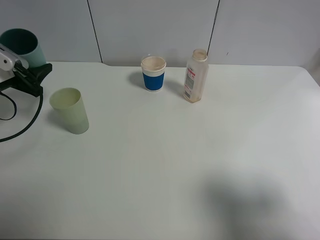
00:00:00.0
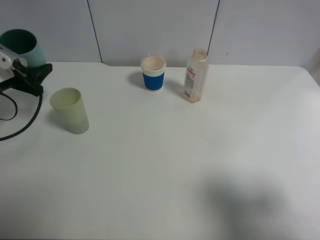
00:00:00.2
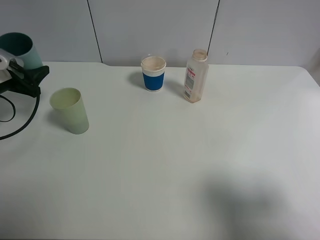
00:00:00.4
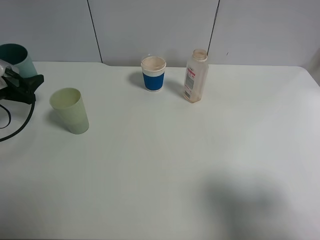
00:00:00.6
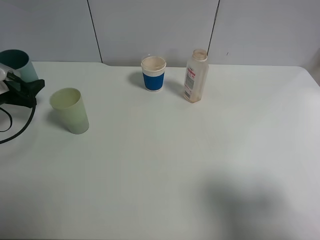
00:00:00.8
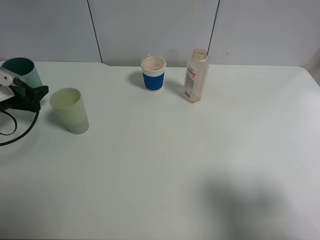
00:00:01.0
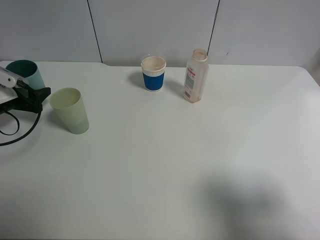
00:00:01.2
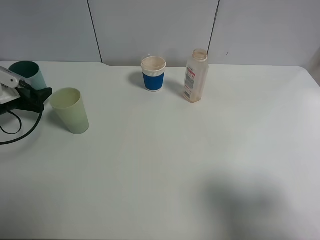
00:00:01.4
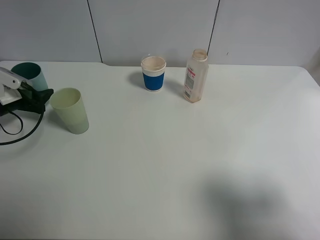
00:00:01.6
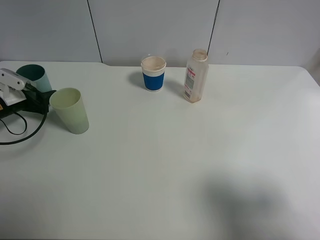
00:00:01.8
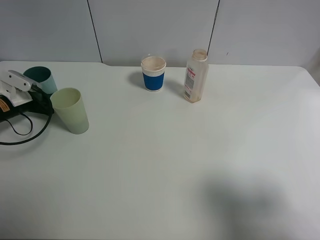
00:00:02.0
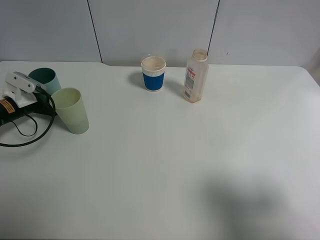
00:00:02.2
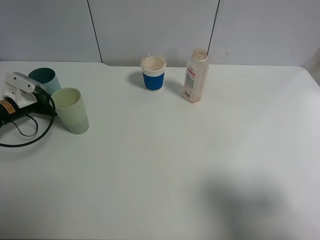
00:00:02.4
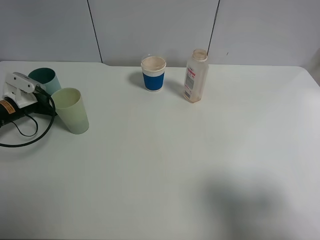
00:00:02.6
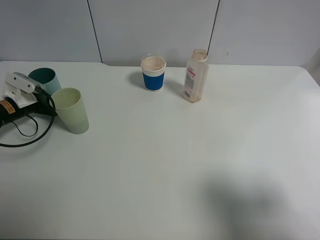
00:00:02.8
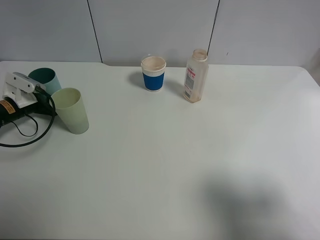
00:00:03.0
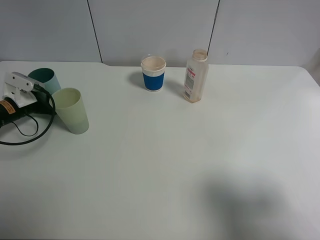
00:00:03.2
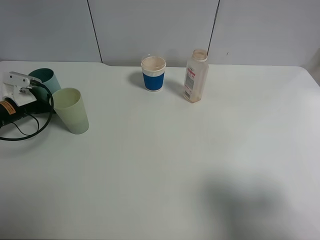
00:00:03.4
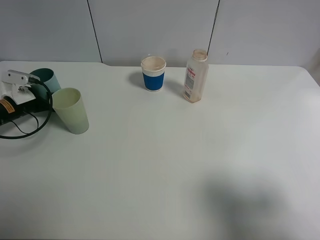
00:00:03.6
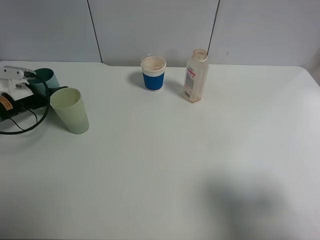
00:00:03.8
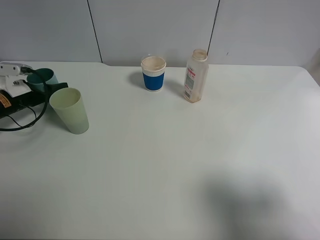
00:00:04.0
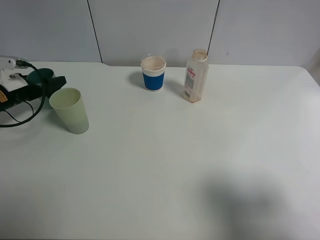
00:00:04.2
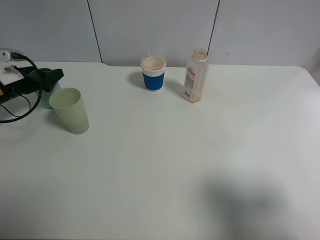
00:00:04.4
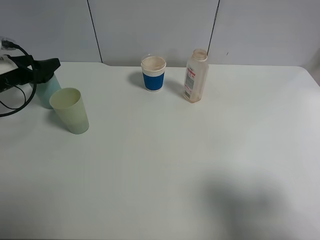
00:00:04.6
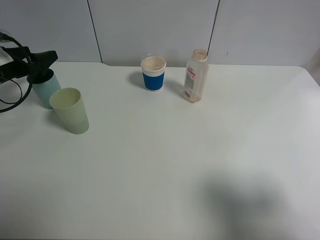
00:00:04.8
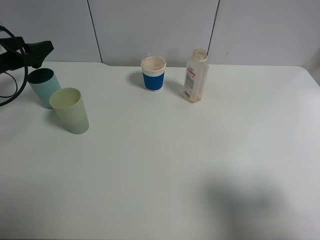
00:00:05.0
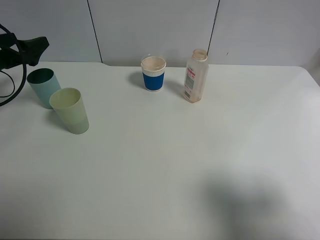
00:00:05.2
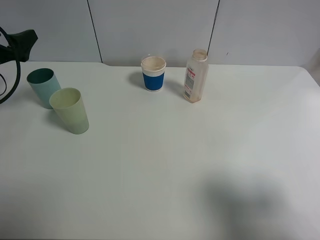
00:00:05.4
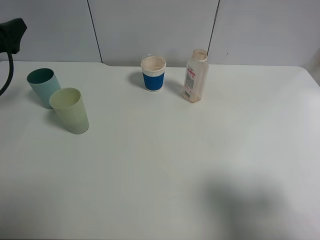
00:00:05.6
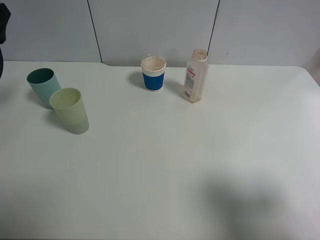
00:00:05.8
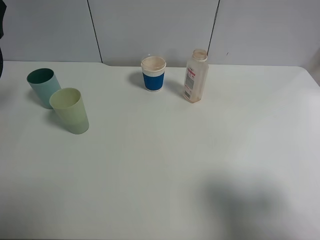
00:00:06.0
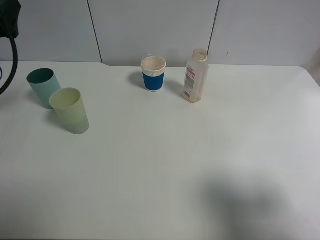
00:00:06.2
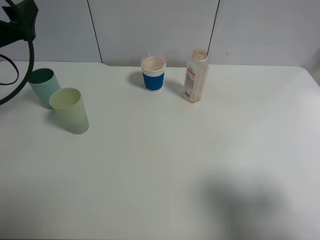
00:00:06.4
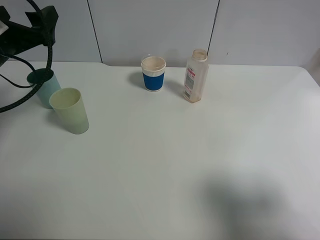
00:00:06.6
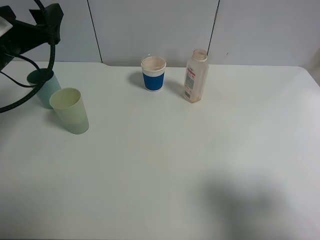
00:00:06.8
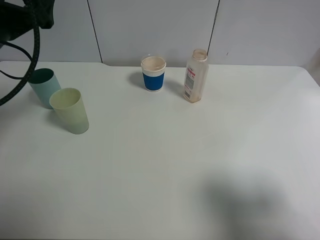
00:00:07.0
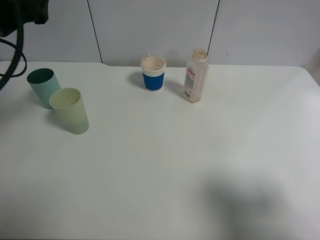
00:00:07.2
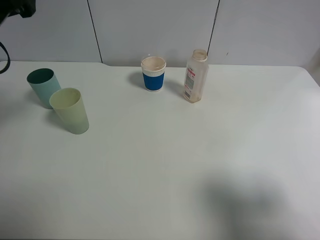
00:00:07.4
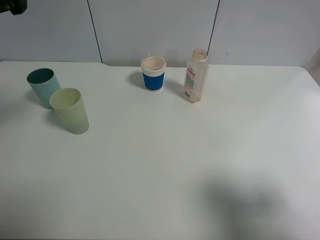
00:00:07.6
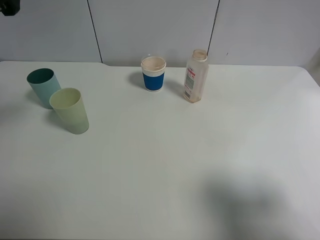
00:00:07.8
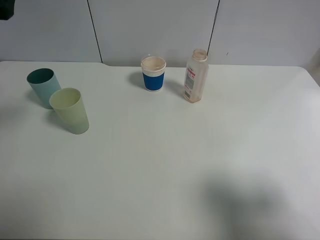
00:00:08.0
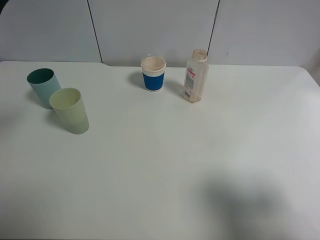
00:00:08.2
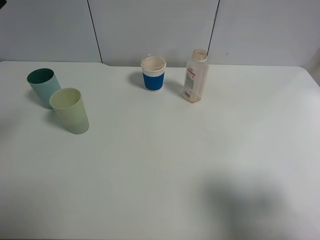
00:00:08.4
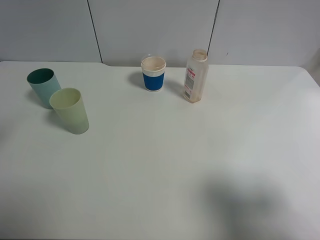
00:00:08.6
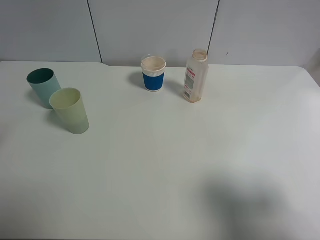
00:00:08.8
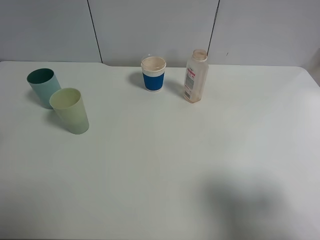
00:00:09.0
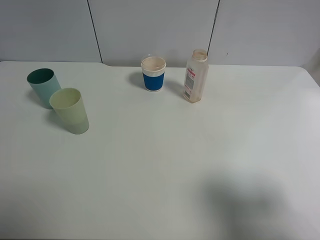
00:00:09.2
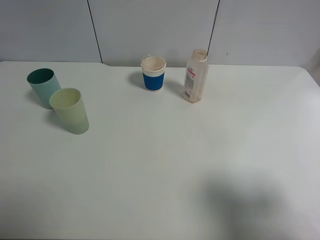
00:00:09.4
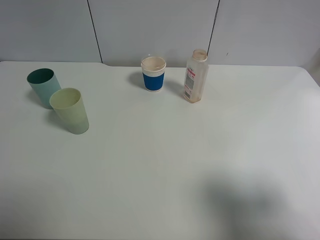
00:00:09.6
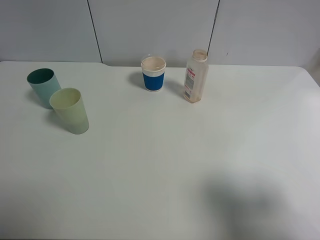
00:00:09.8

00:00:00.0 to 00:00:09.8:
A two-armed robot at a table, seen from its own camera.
Task of the whole recording: use a clamp to hold the bottle of the drink, pour the beverage into a random cup, then clamp the cup containing the drink and pour the drink into another random cup.
00:00:00.0 to 00:00:01.4: The left gripper heads downward, covering approximately 10 cm.
00:00:01.4 to 00:00:02.8: There are only small adjustments of the grippers.
00:00:02.8 to 00:00:04.2: The left gripper opens.
00:00:04.2 to 00:00:05.6: The left gripper goes approximately 15 cm upward and backward.
00:00:05.6 to 00:00:07.0: The left gripper goes about 10 cm to the right.
00:00:07.0 to 00:00:08.4: The left gripper goes some 10 cm backward and upward.

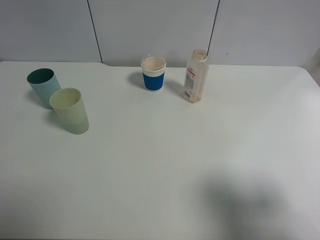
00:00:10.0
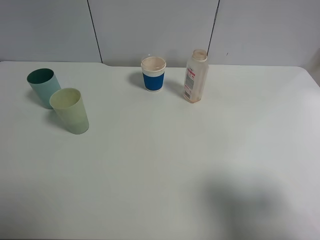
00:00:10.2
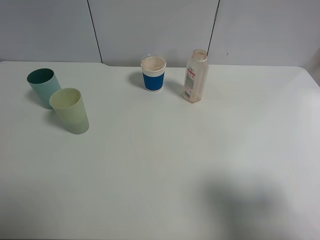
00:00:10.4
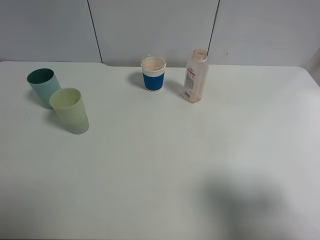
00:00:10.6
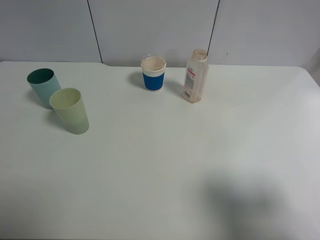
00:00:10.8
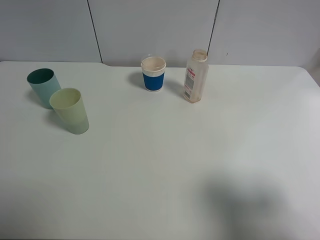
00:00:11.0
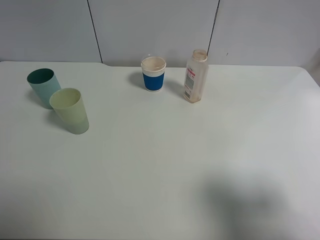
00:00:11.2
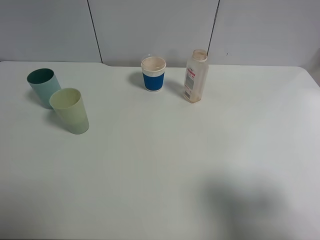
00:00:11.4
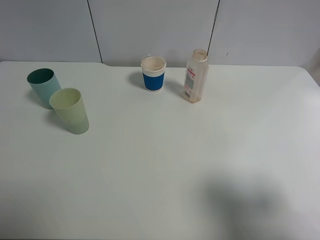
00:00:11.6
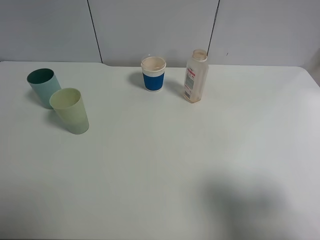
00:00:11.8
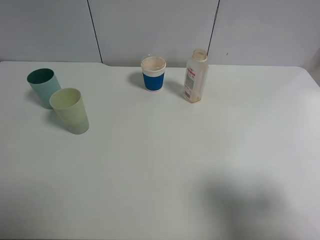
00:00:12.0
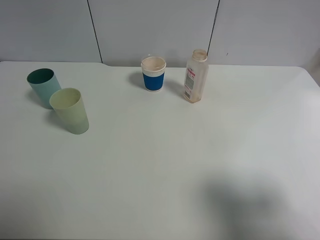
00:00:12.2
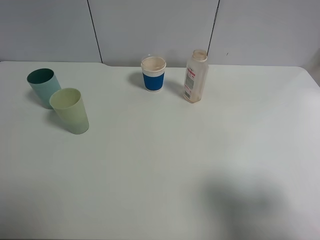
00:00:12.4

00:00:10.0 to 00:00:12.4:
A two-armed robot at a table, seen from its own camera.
Task of the whole recording: use a clamp to hold the bottle of the drink, pour the beverage into a random cup, then clamp the cup containing the drink and pour the drink into another random cup.
00:00:11.2 to 00:00:12.4: Neither gripper changes place.

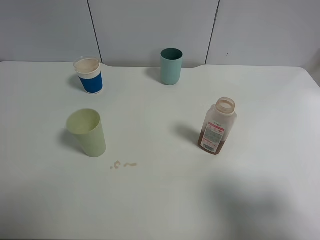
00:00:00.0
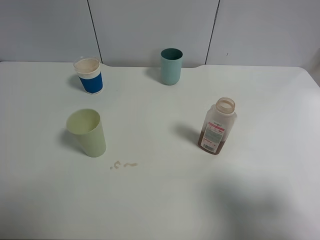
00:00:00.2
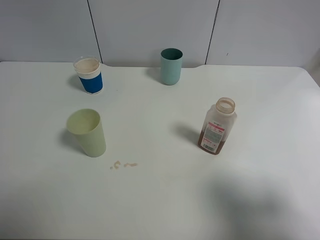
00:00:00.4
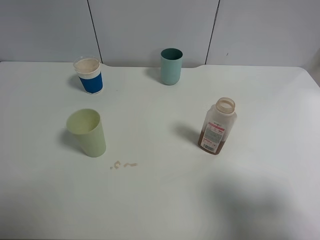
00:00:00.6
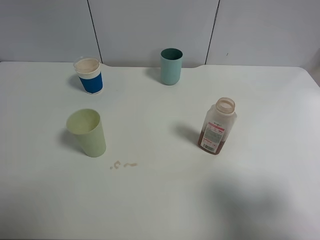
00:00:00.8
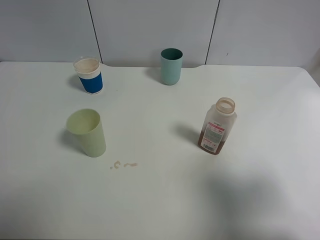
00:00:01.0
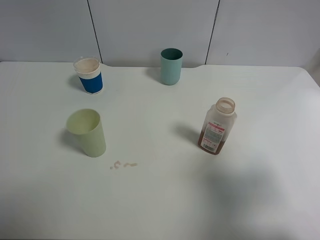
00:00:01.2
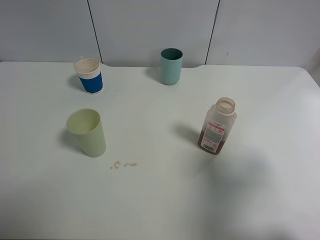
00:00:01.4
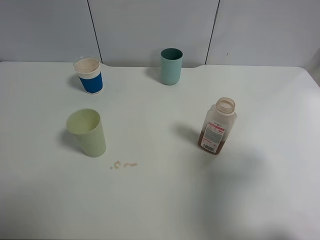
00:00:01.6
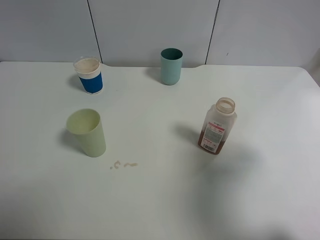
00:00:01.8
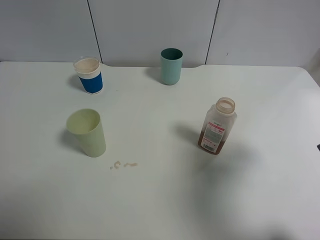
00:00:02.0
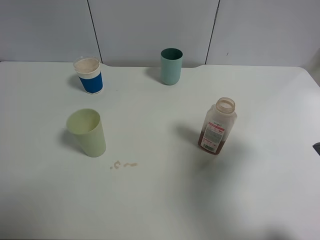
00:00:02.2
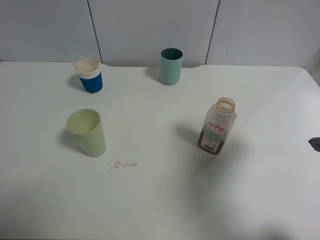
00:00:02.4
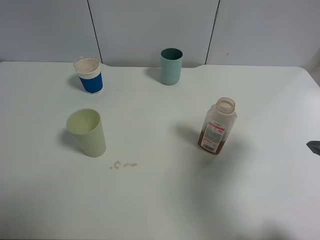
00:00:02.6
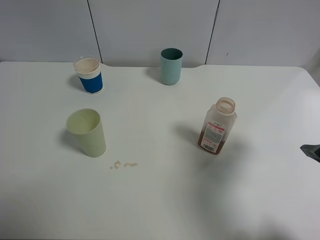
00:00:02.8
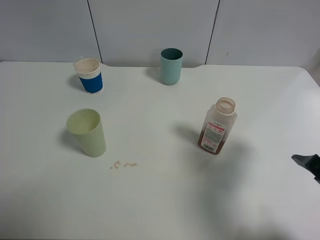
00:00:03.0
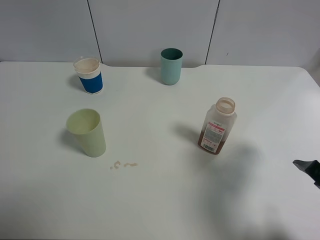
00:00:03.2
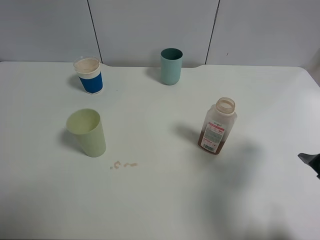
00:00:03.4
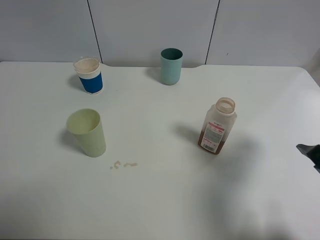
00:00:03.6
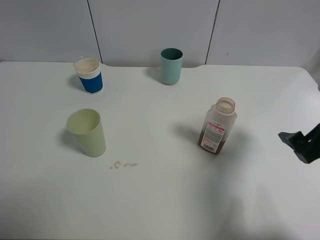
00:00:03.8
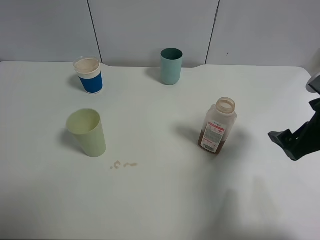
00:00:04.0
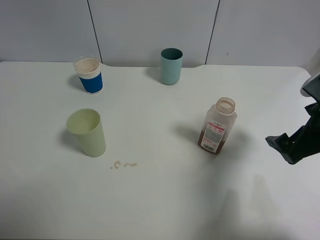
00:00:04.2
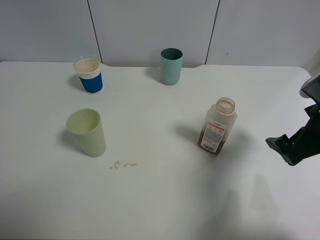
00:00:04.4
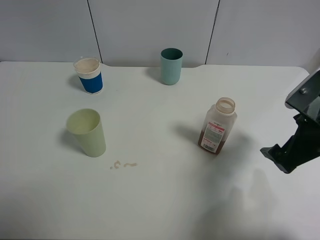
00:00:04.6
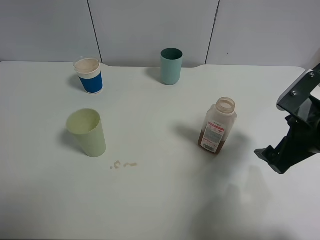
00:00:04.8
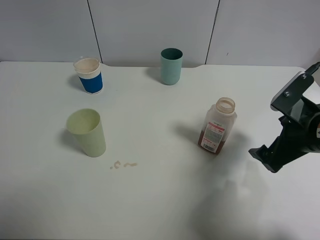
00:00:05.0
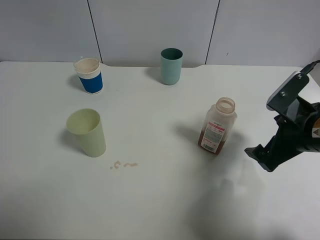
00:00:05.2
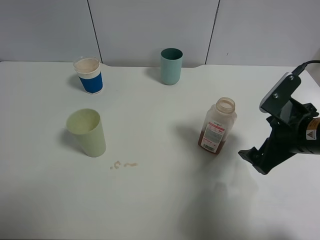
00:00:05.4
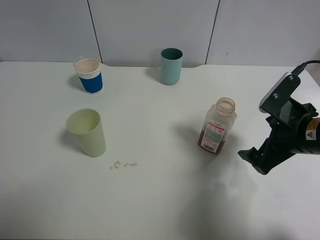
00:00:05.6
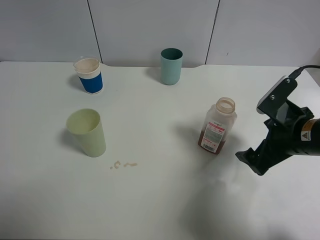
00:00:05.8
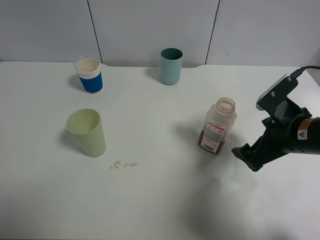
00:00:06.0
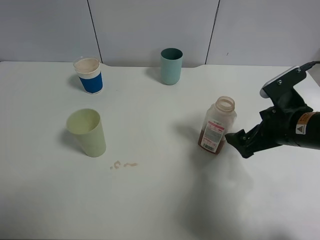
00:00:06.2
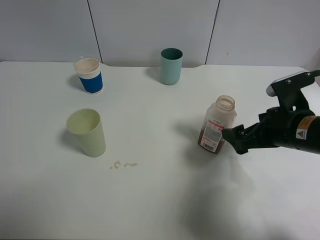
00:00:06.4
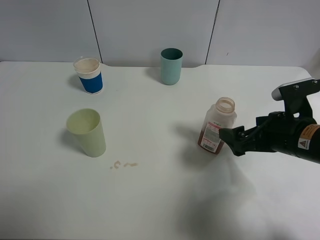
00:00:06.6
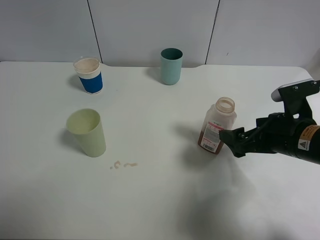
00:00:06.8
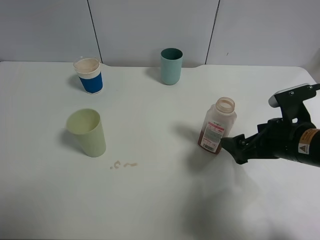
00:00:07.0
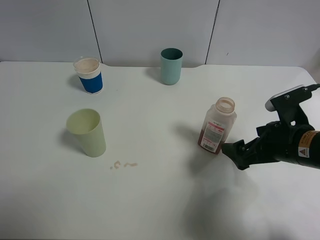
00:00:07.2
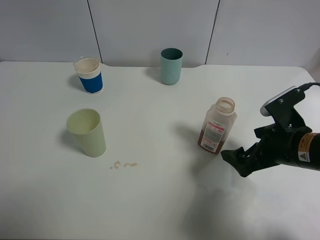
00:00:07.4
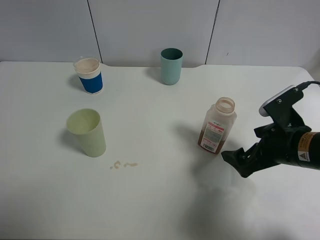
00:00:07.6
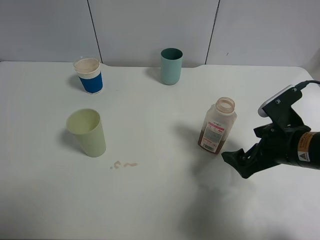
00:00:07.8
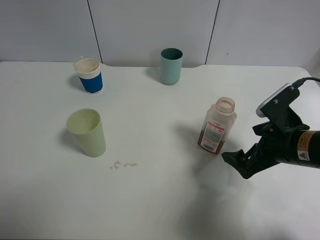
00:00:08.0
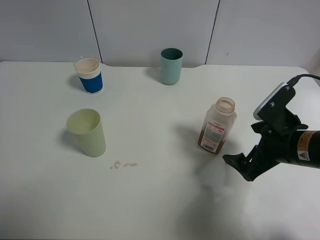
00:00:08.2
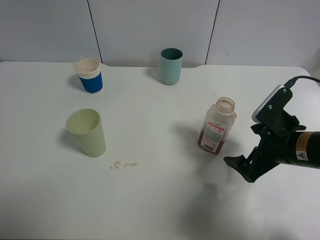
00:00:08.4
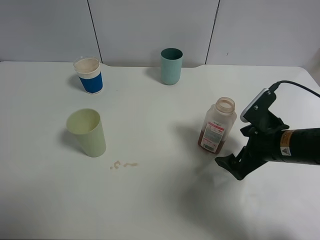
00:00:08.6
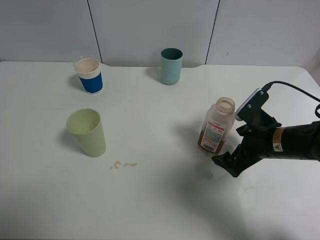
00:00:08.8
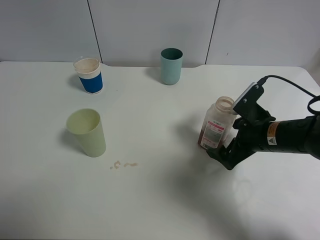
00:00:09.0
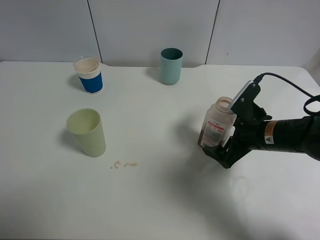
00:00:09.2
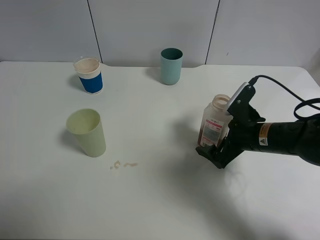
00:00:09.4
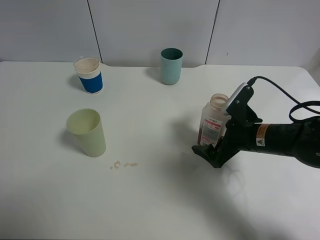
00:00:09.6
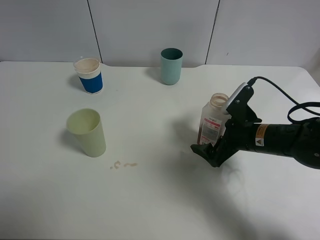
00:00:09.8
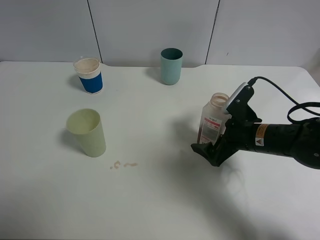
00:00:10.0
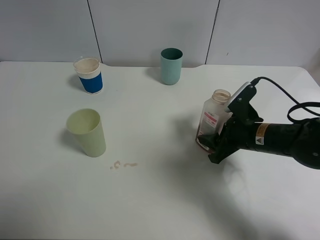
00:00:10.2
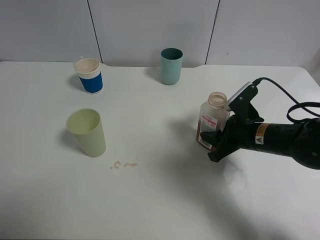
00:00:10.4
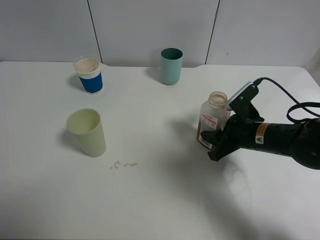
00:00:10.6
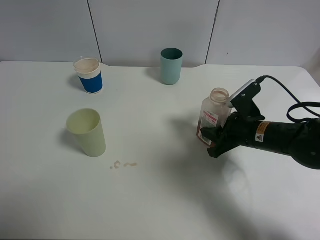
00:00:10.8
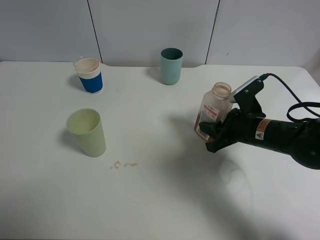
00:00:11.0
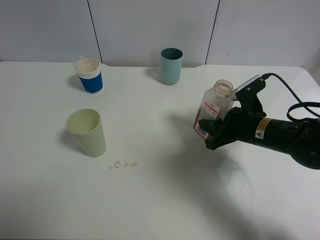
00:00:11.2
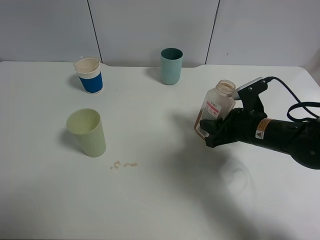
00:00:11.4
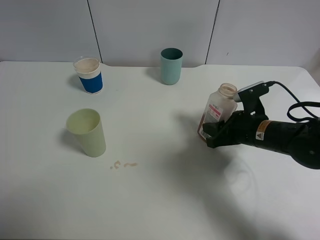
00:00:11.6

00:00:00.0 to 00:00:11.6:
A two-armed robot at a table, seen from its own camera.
Task of the whole recording: use a clamp to hold the bottle of the drink, pour the beverage into a random cup, then clamp the cup containing the drink and pour the drink into another random cup.
Step, 00:00:00.0 to 00:00:11.2: Pick up the drink bottle with right gripper.
00:00:00.0 to 00:00:01.4: The right gripper shifts about 5 cm forward.
00:00:01.4 to 00:00:02.8: The right gripper moves some 5 cm.
00:00:02.8 to 00:00:04.4: The right gripper moves downward, approximately 5 cm.
00:00:04.4 to 00:00:05.8: The right gripper moves about 5 cm.
00:00:07.2 to 00:00:08.8: The right gripper moves some 5 cm.
00:00:08.8 to 00:00:10.2: The right gripper closes its fingers.
00:00:10.2 to 00:00:11.6: The grippers stay close to where they were, moving slightly.
